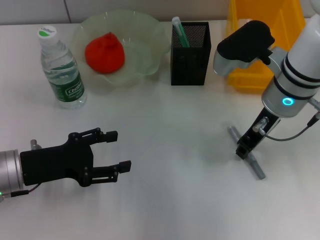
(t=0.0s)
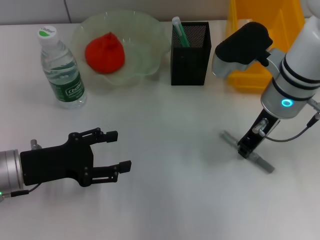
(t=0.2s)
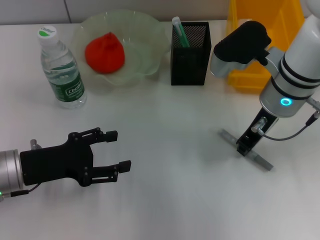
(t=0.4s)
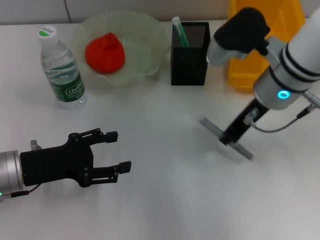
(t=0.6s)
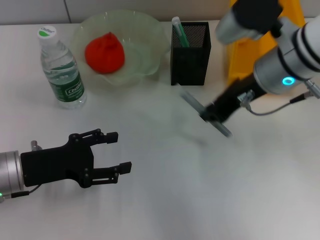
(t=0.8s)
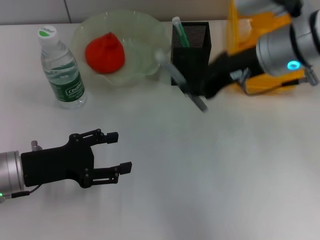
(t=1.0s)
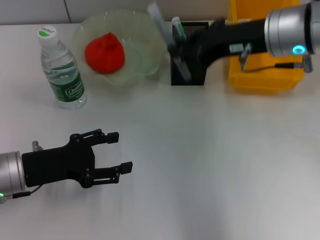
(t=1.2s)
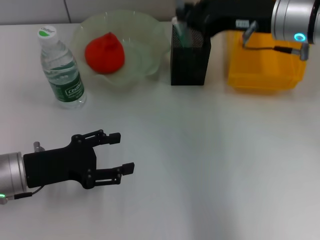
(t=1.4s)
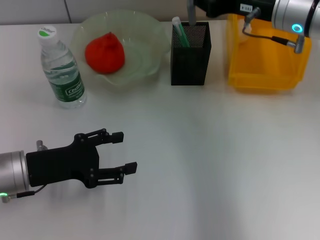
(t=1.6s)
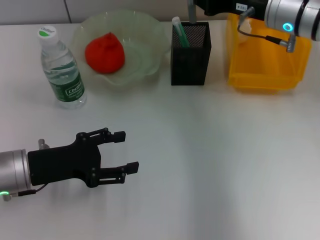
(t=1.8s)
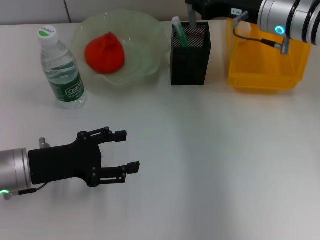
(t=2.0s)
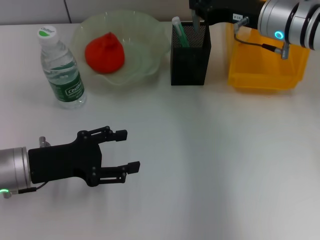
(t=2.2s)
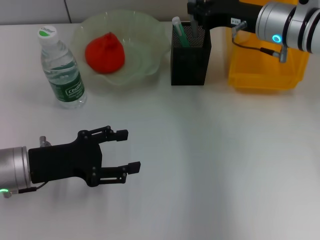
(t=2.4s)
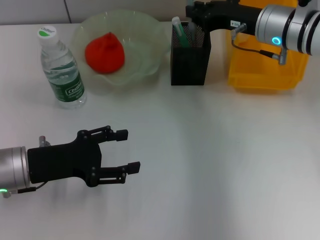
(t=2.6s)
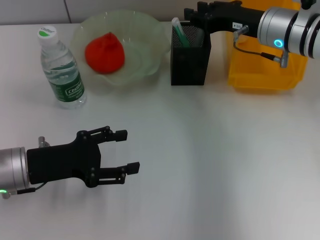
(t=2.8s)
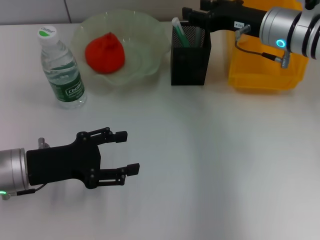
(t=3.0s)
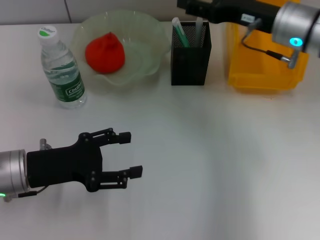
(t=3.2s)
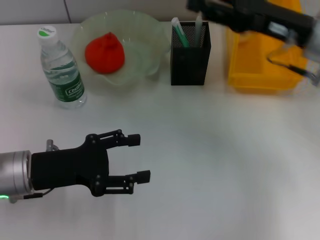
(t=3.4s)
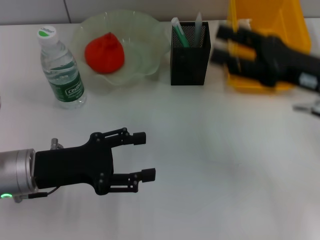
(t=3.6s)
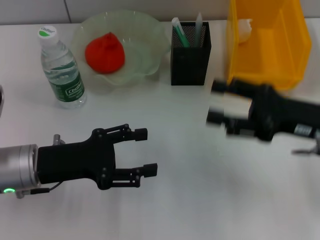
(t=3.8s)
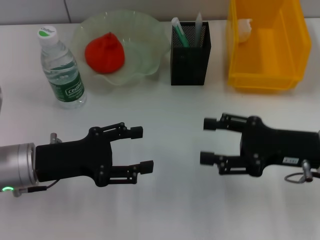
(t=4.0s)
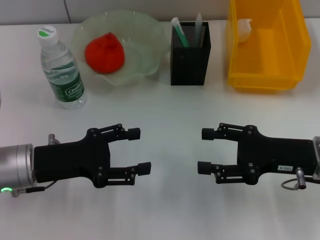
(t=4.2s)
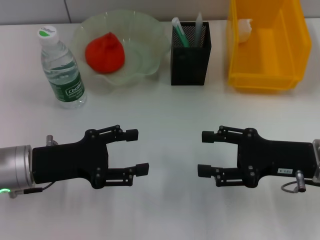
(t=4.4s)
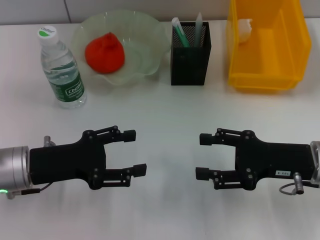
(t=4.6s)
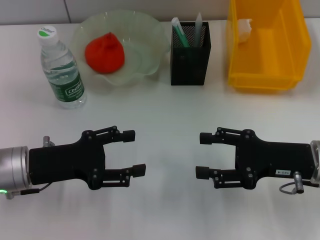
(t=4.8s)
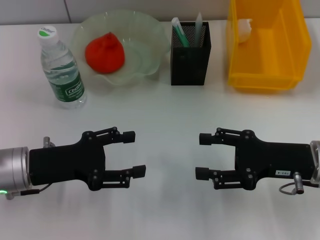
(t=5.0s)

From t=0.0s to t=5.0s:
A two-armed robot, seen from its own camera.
Step, from t=0.4s to t=2.8s: Place the gray glue into the pen holder with the right hand.
From t=0.0s to t=1.6s: The right gripper ends up about 5 cm from where it was.
From t=1.6s to t=3.4s: The right gripper is displaced backward by approximately 5 cm, and opens its fingers.
From t=3.4s to t=5.0s: The right gripper is displaced downward and backward by roughly 15 cm.
